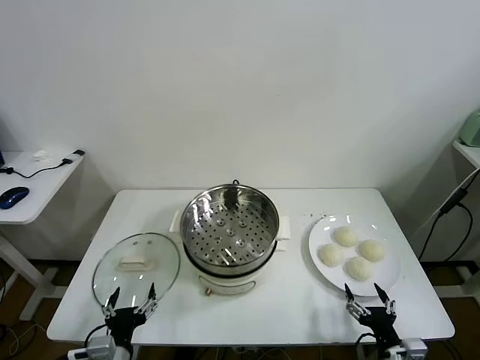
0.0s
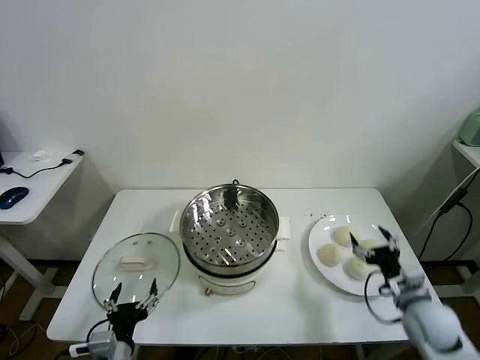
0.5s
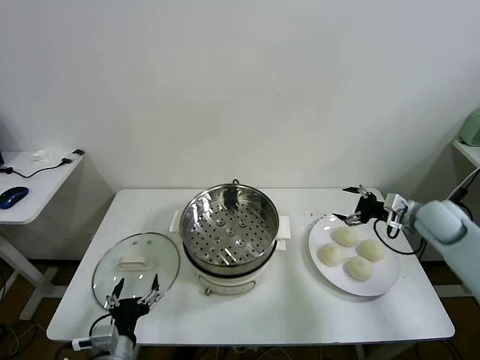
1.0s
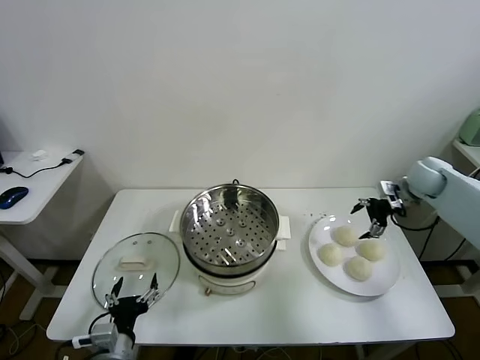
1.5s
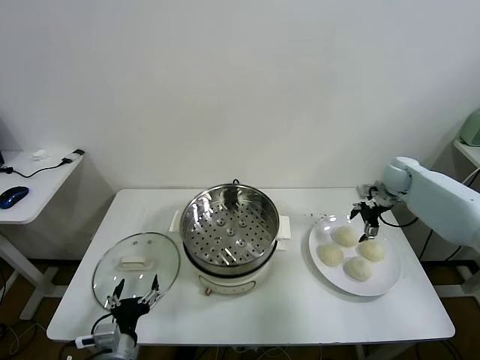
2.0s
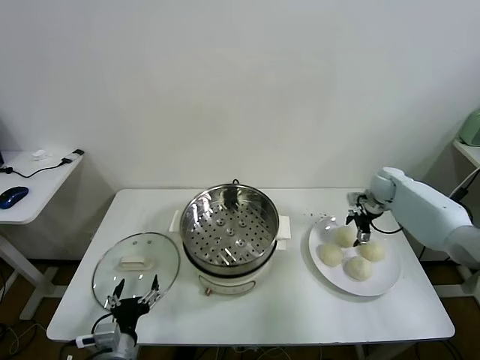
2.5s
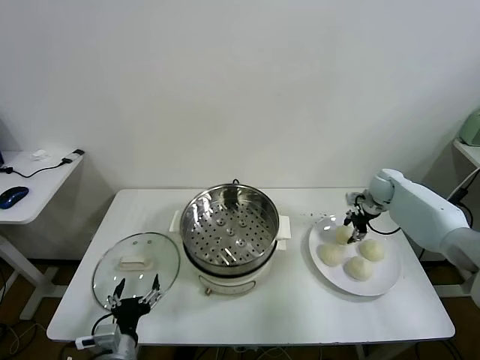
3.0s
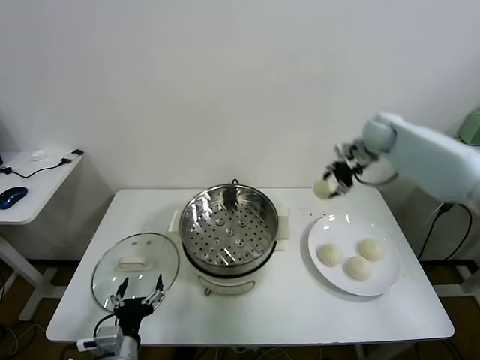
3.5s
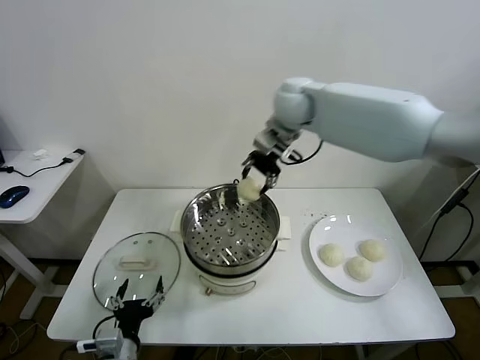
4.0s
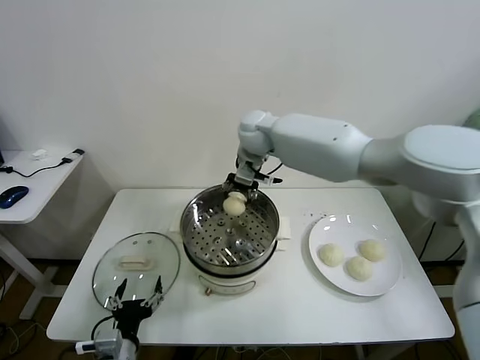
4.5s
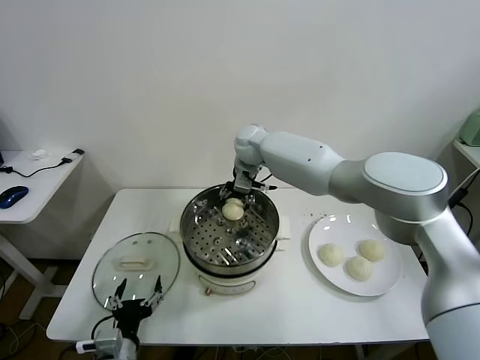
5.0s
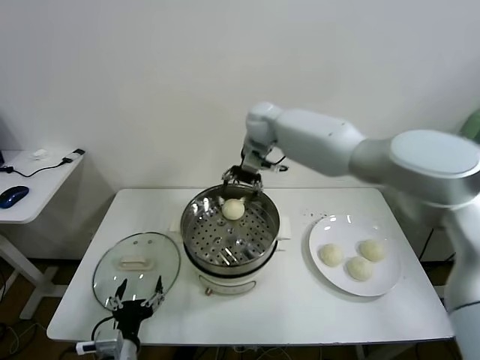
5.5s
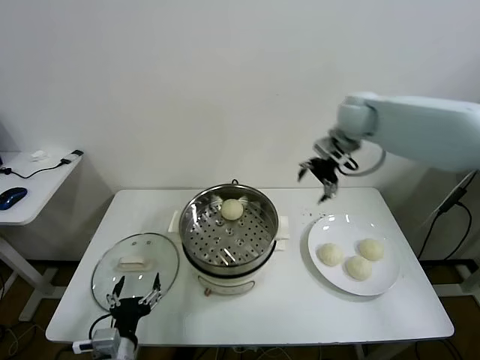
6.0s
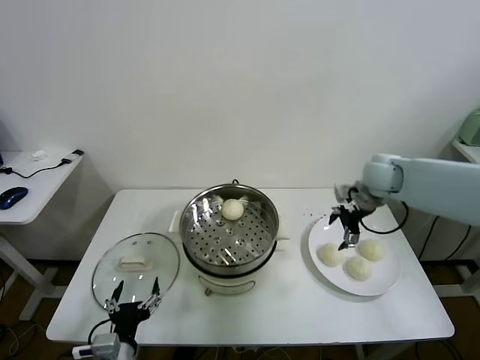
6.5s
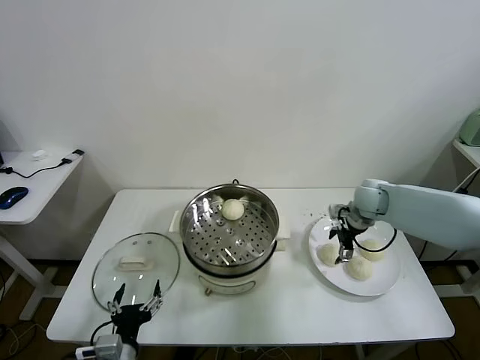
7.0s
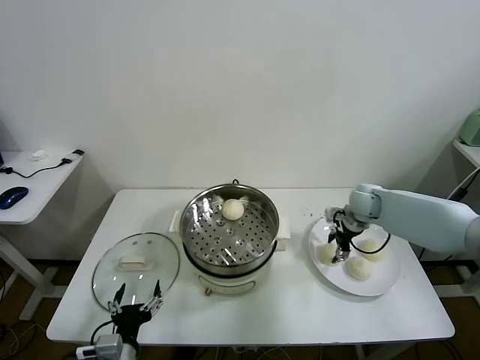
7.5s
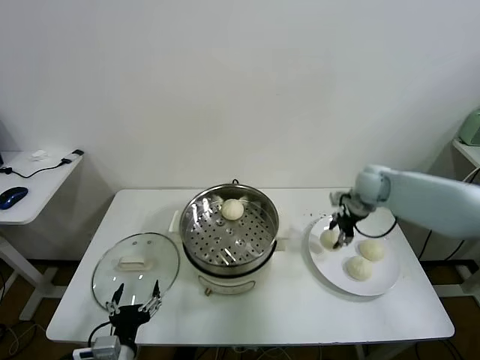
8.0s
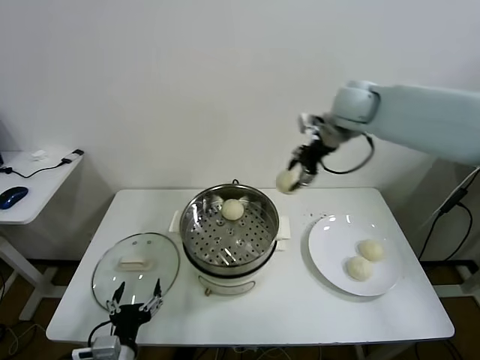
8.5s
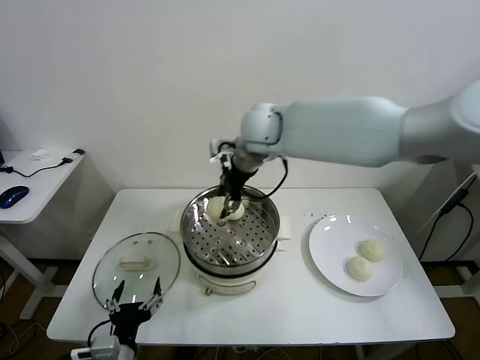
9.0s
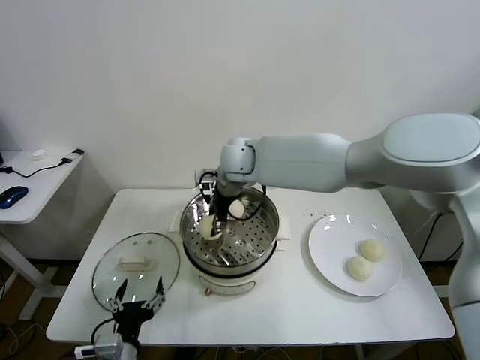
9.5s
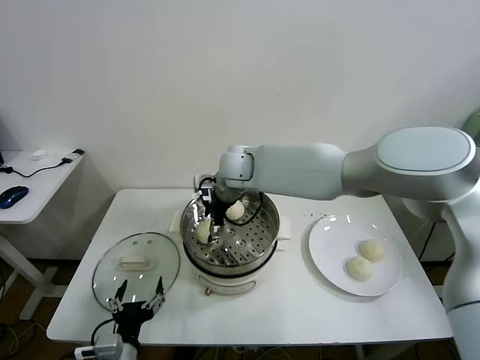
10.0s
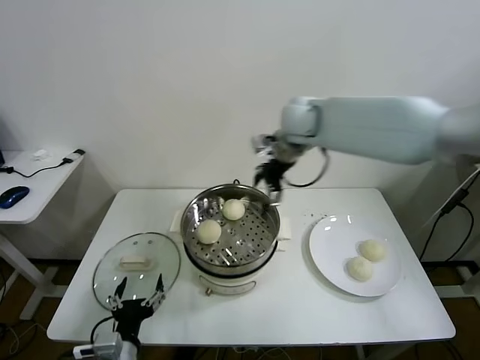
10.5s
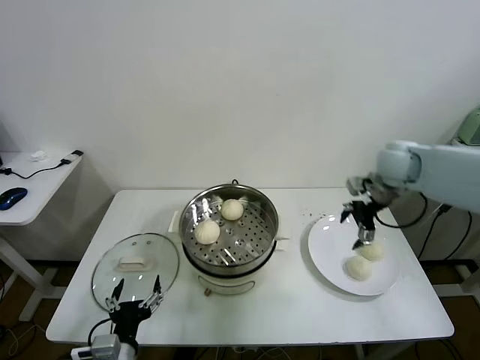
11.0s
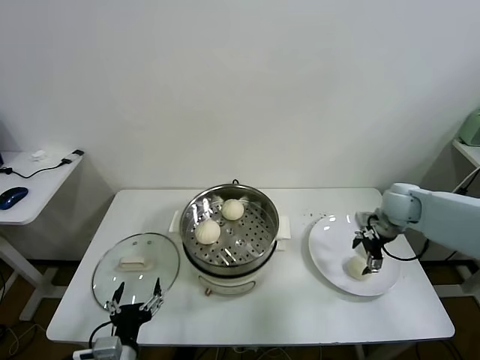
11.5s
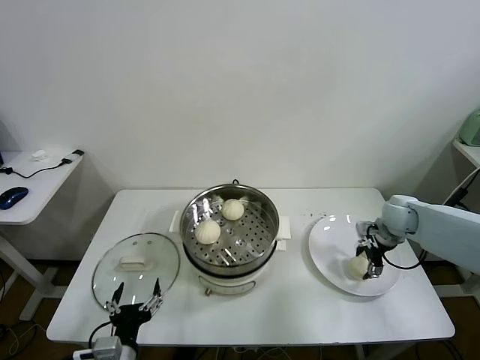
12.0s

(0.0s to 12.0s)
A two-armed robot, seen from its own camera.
Task of the whole recording: take steamed baozi put them in steamer.
Step, 0.0s - 2.5s: Grasp the baozi in the plate with right gripper.
Step, 3.0s - 5.0s: Place the baozi on the steamer with right gripper.
Step, 5.5s - 7.5s: Grasp the baozi in the plate with right gripper.
Step, 8.0s - 9.5s: Place the baozi on the steamer with right gripper.
2.0s - 4.0s: The right gripper shifts about 40 cm to the left and upward, and closes its fingers.
4.0s - 6.0s: The right gripper is displaced to the right by some 15 cm, and opens up.
6.0s - 8.0s: The right gripper heads downward and to the right, covering some 20 cm, and closes up.
8.0s - 10.0s: The right gripper shifts roughly 35 cm to the left, and opens its fingers.
10.0s - 12.0s: The right gripper shifts some 40 cm to the right.

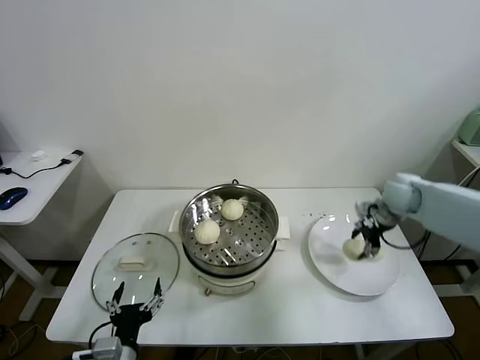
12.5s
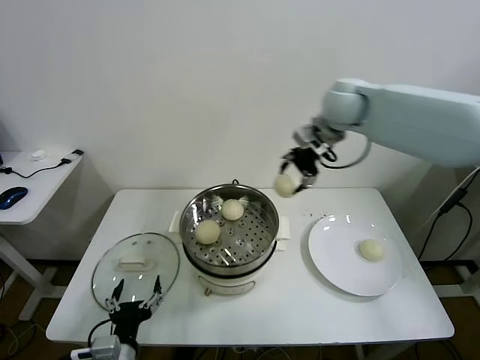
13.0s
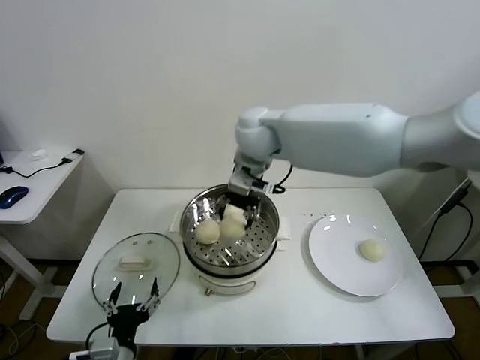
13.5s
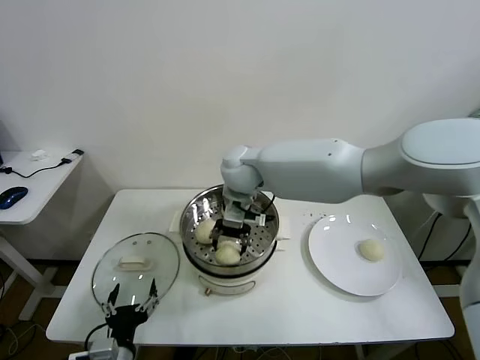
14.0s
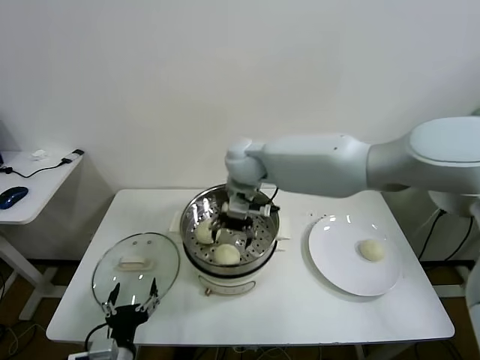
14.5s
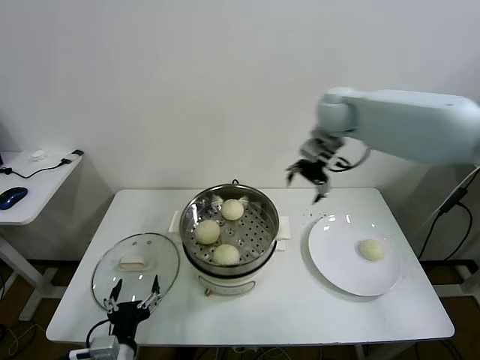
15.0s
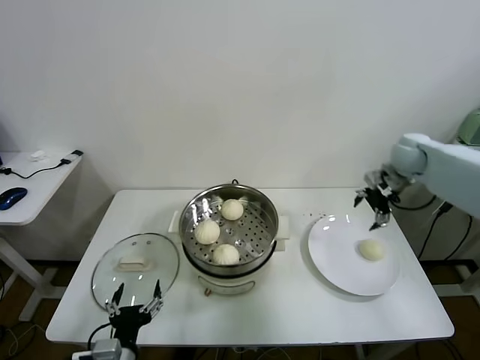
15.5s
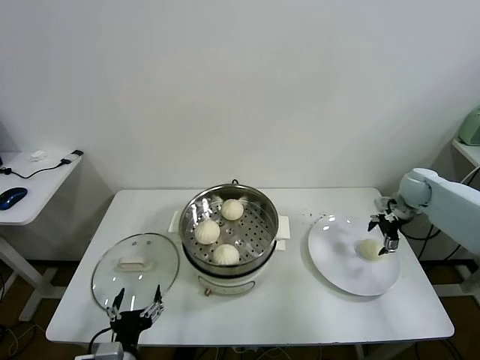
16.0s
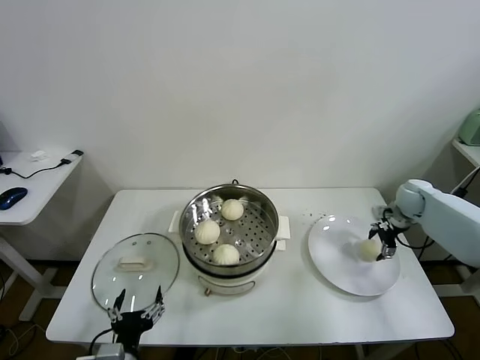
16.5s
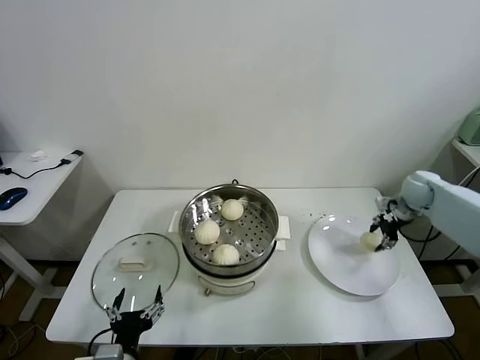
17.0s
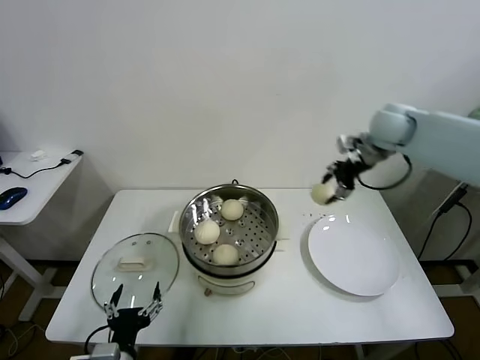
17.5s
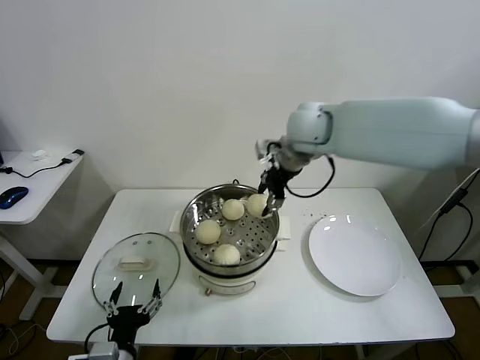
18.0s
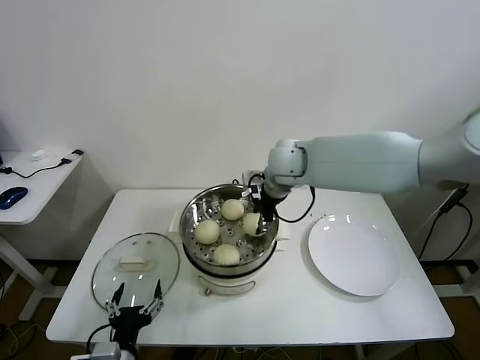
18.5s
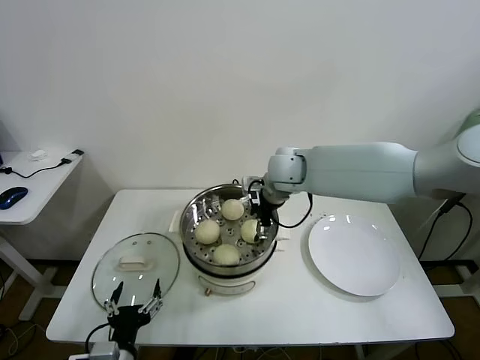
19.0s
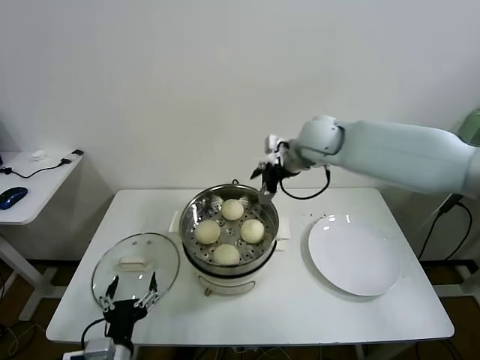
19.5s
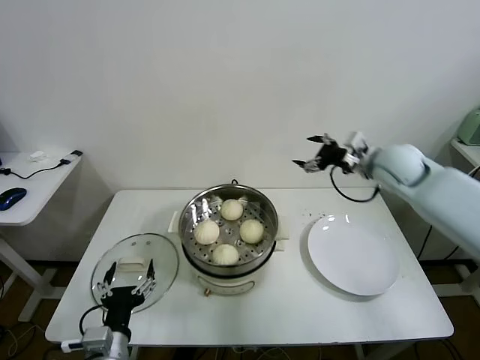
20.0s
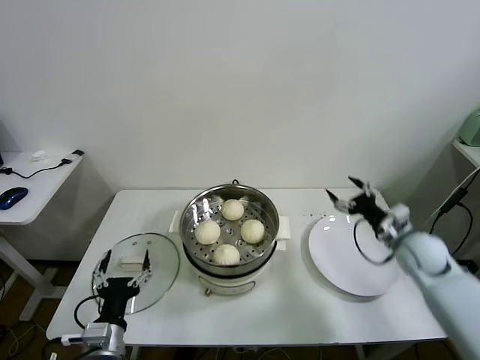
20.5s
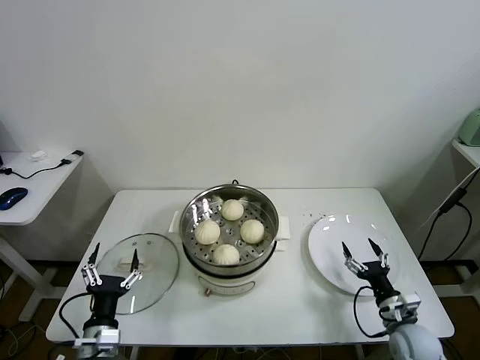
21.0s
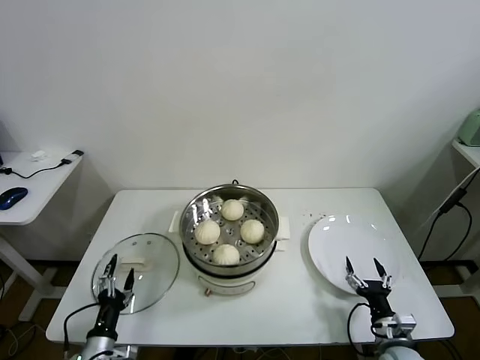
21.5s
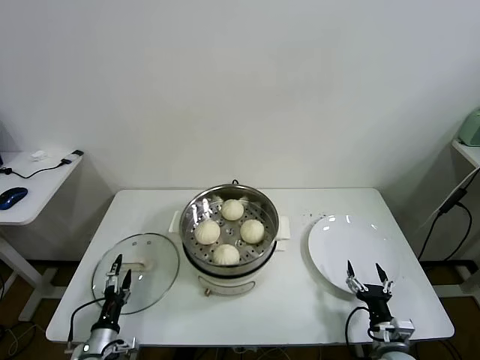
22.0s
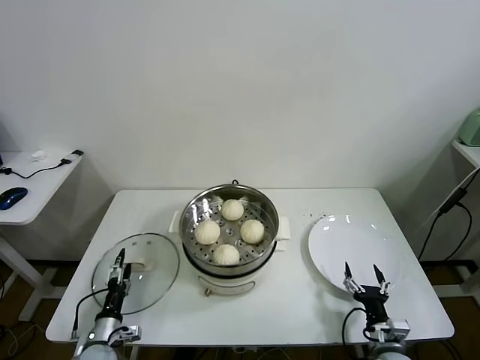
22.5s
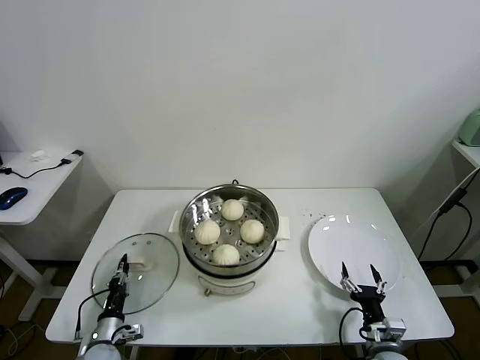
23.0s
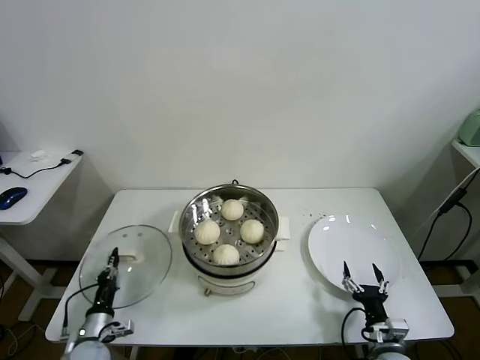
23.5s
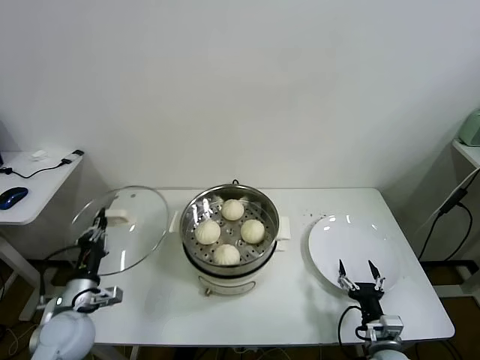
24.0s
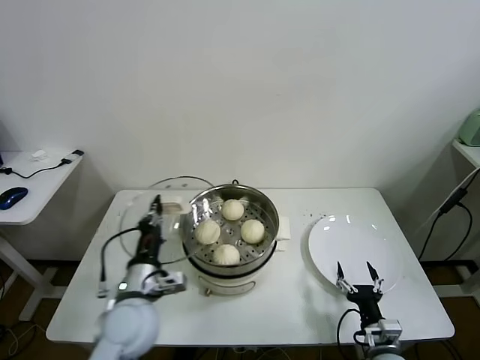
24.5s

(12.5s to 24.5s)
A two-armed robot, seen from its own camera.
Task of the whole recording: take steamed baozi put them in steamer.
Step, 12.5s - 14.0s: Place the baozi on the steamer with right gripper.
Step, 14.5s - 16.5s: Grasp the baozi in the plate with right gripper.
Step, 17.0s - 19.0s: Place the baozi on the steamer with right gripper.
Step, 19.5s - 23.0s: Grasp the pot lid with left gripper.
12.5s - 14.5s: The right gripper shifts approximately 40 cm to the left, and opens its fingers.
14.5s - 16.5s: The right gripper travels to the right by about 50 cm.
16.5s - 18.5s: The right gripper heads to the left and upward, covering about 40 cm, and closes up.
18.5s - 20.5s: The right gripper moves to the right and downward, approximately 35 cm, and opens its fingers.
20.5s - 22.5s: The right gripper travels backward and downward by roughly 30 cm; the left gripper shifts some 20 cm downward and to the left.
22.5s - 24.5s: The left gripper heads upward and to the right, covering approximately 25 cm, and closes its fingers.

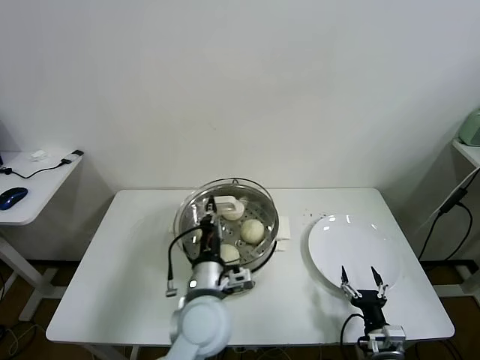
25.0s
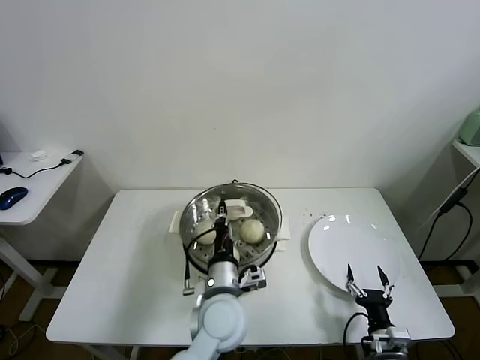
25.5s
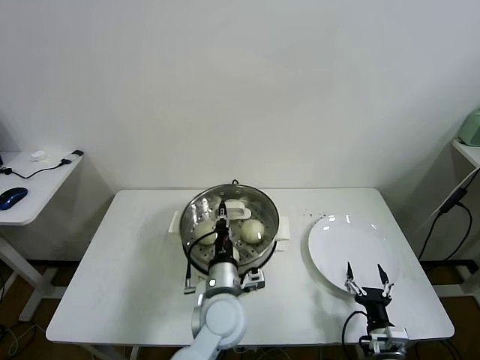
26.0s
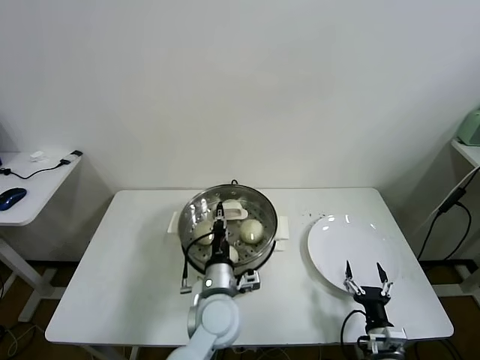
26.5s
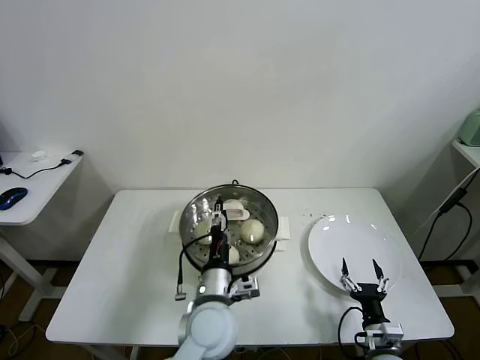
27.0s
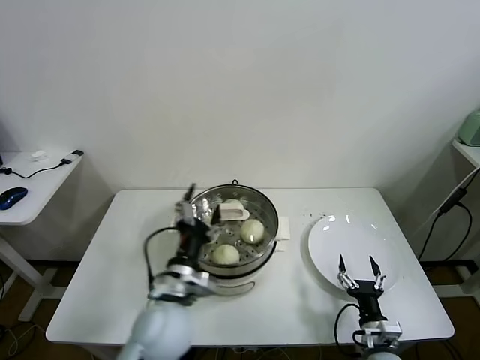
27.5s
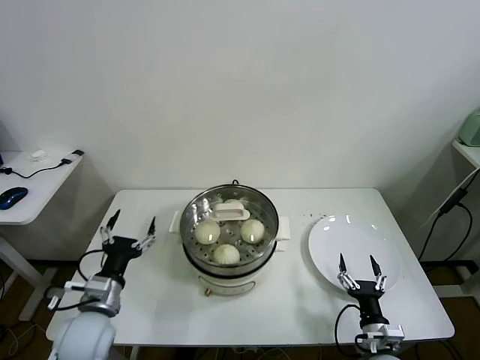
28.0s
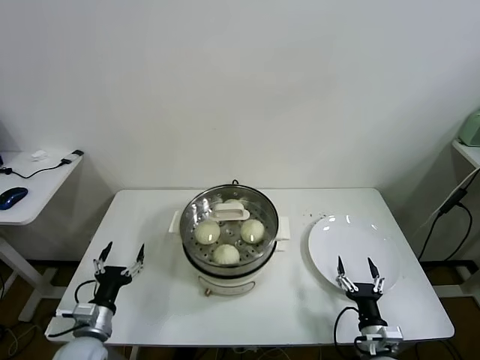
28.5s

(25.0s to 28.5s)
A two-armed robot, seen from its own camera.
Task of the whole recording: take steamed baozi put them in steamer.
25.0s - 27.0s: The left gripper opens up.
27.0s - 28.5s: The left gripper is displaced to the left by some 30 cm, and opens.
